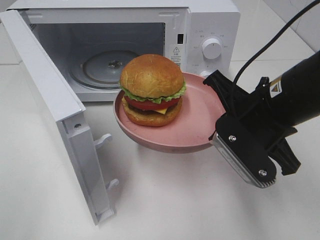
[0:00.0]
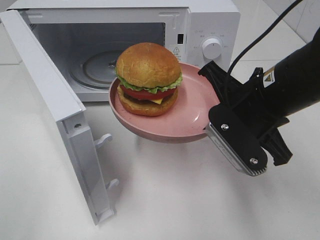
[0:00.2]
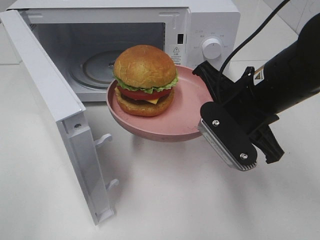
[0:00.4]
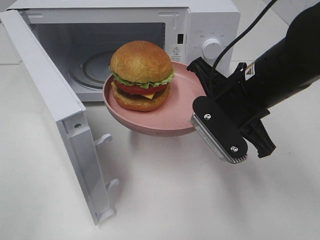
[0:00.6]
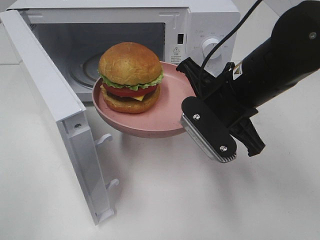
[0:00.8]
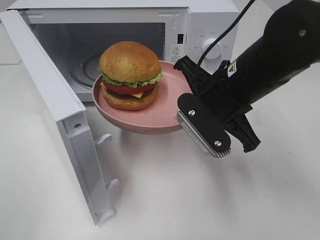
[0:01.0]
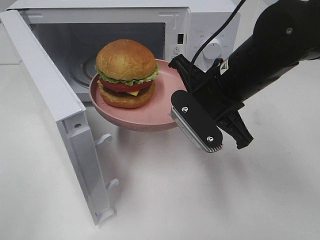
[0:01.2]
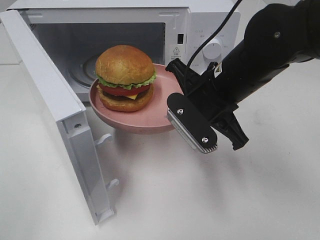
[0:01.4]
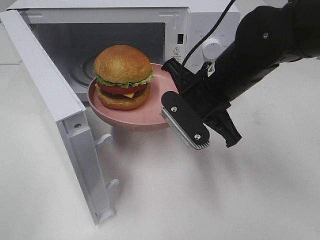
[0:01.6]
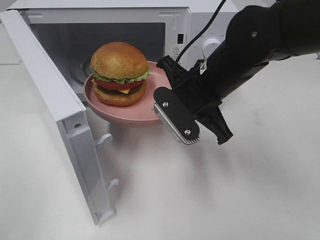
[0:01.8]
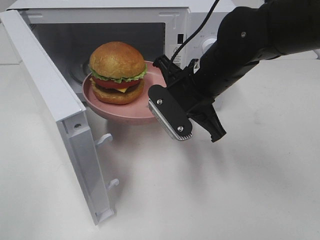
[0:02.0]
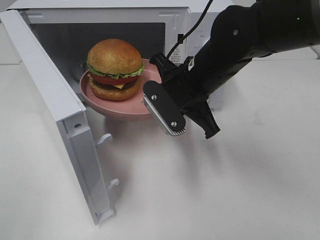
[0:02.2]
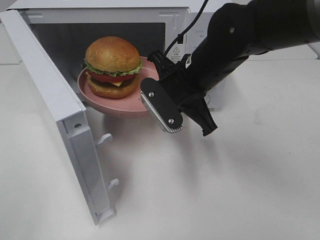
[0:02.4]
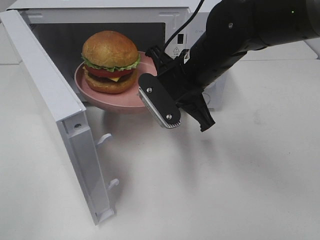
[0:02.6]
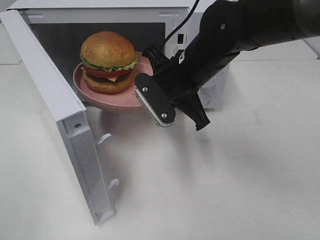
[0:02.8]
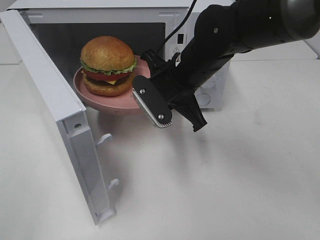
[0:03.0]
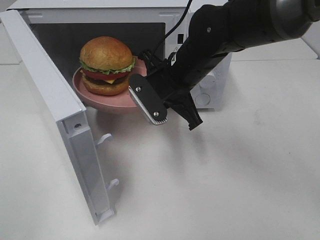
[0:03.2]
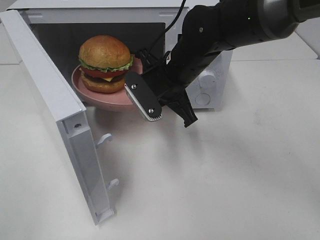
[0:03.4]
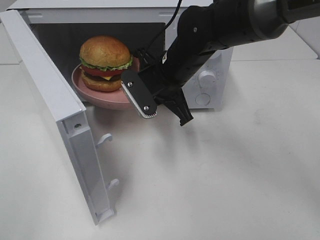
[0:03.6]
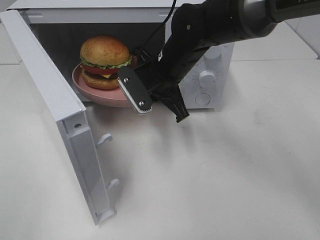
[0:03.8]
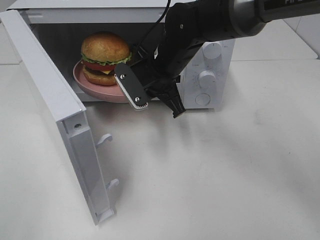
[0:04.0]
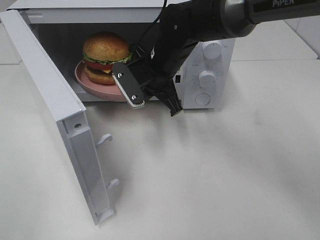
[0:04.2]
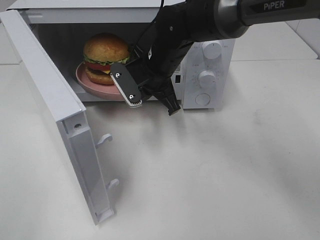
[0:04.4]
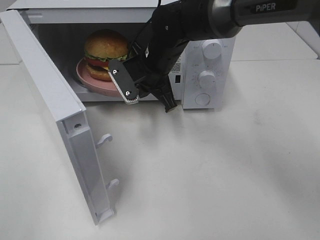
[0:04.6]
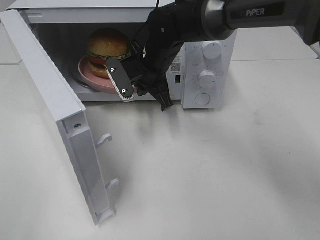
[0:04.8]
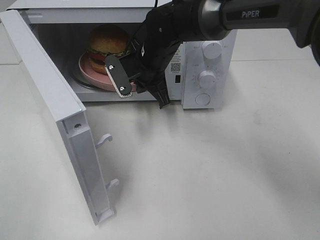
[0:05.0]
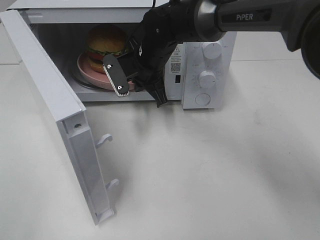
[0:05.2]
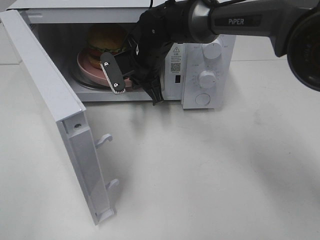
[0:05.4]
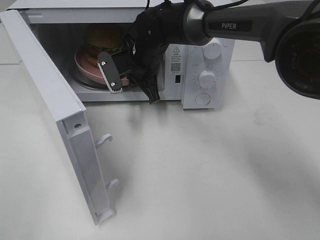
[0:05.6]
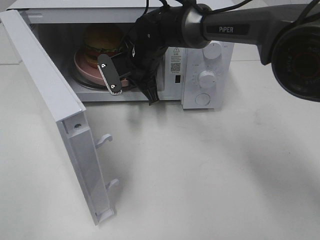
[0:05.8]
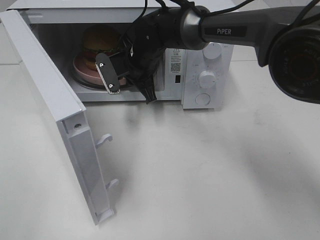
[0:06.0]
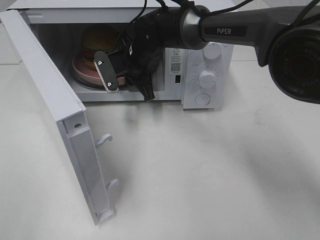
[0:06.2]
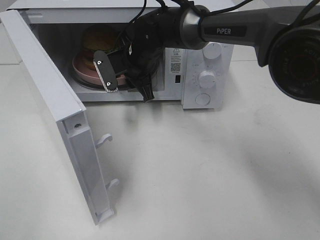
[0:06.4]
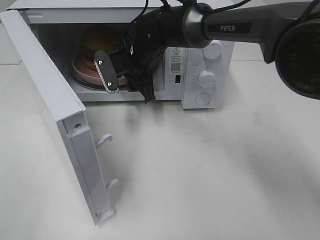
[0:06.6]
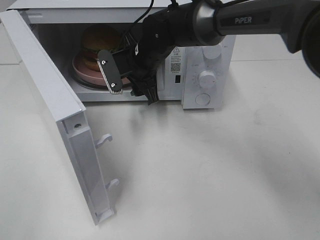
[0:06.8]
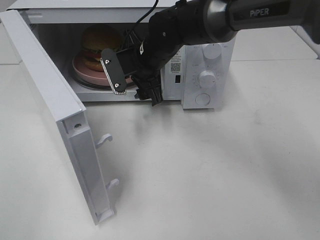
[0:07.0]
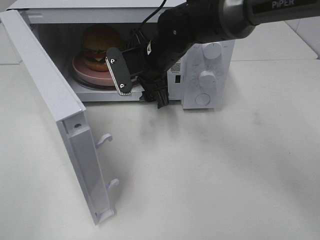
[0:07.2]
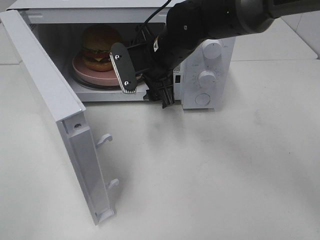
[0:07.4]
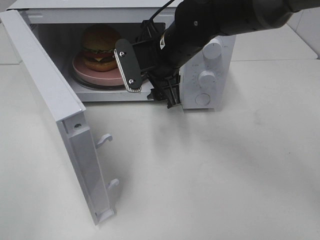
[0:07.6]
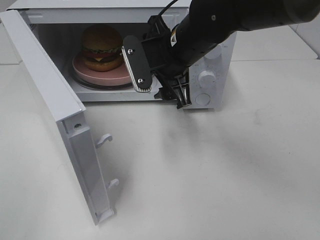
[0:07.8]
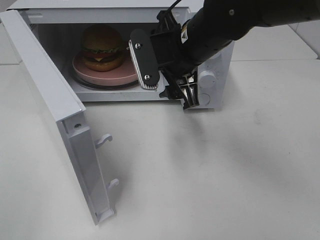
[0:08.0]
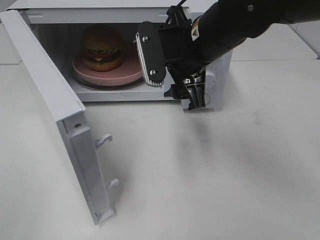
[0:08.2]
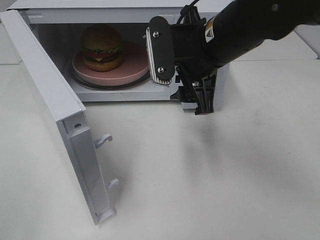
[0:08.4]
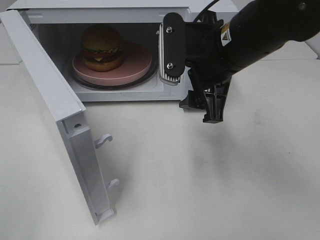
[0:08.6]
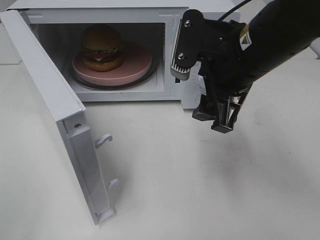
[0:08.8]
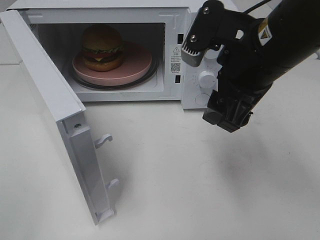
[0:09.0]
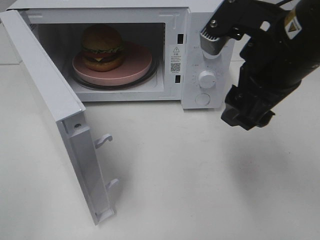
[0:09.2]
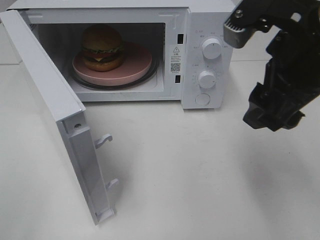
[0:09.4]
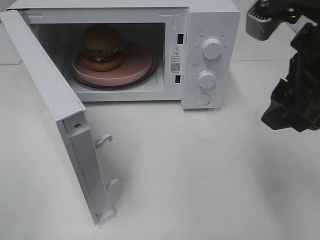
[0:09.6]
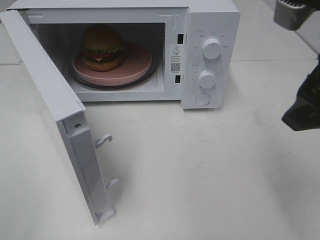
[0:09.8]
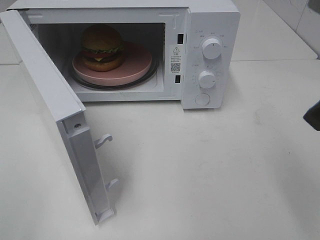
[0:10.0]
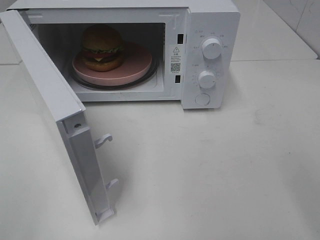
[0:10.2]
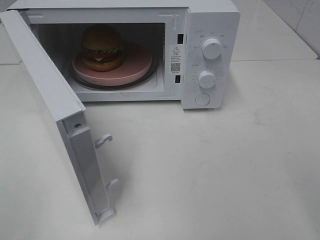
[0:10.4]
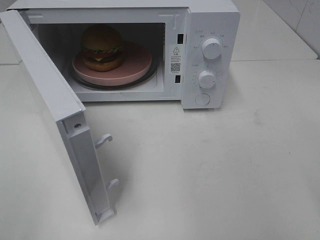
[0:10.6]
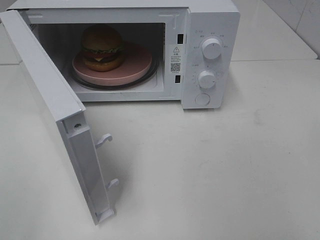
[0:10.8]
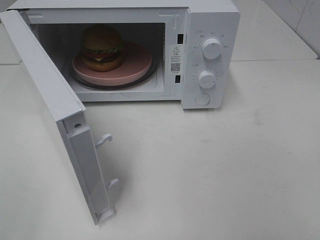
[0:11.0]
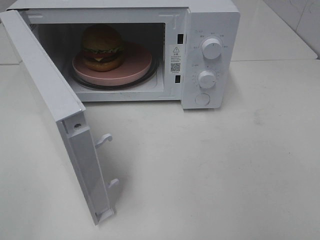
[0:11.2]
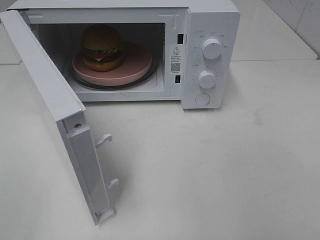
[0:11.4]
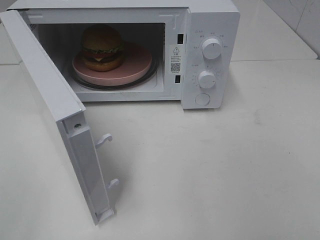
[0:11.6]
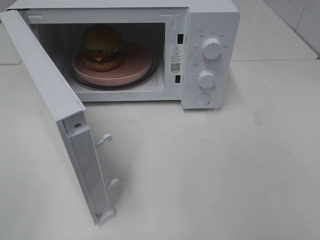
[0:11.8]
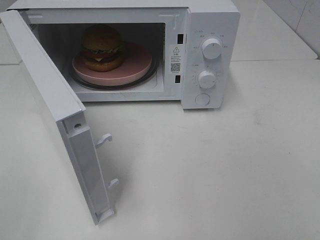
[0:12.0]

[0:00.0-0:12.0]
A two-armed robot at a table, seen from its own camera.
Task of the whole recording: Heat the burger.
Step, 0:00.0 to 0:06.8: Right hand: place the plate in the microwave.
0:00.0 to 0:01.6: The right gripper moves forward and to the left, roughly 10 cm.
0:01.6 to 0:03.0: The right gripper changes place by roughly 5 cm.
0:03.0 to 0:04.4: The right gripper goes about 5 cm forward.
0:04.4 to 0:06.0: The right gripper travels forward by some 5 cm.
0:06.0 to 0:07.6: The right gripper moves backward, to the right and upward, some 10 cm, and opens.
0:07.6 to 0:09.0: The right gripper is displaced backward, to the right and upward by approximately 15 cm.
0:09.0 to 0:10.4: The right gripper goes roughly 20 cm backward, to the right and upward.

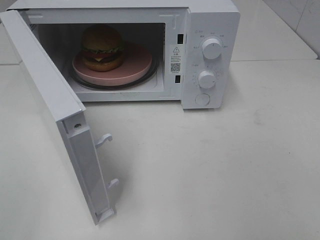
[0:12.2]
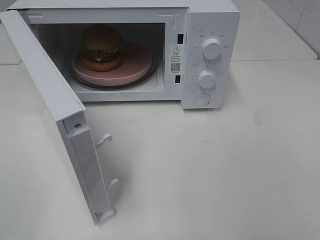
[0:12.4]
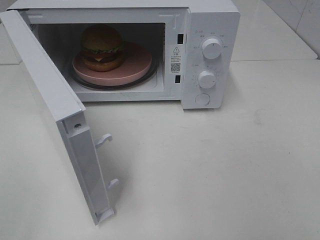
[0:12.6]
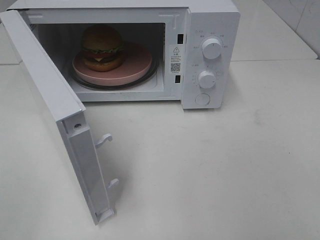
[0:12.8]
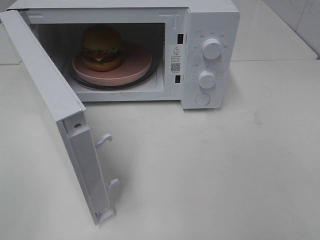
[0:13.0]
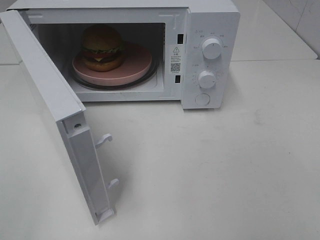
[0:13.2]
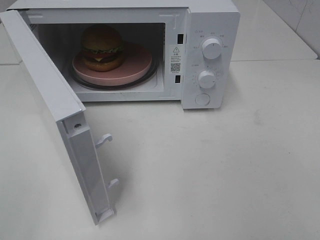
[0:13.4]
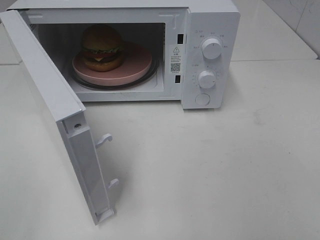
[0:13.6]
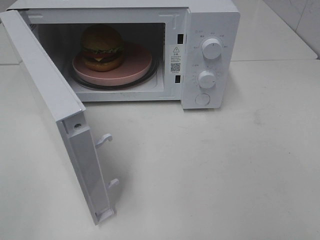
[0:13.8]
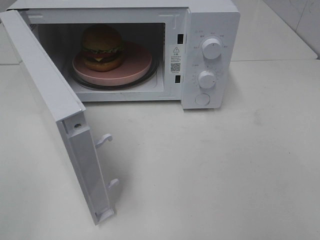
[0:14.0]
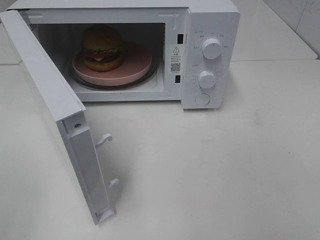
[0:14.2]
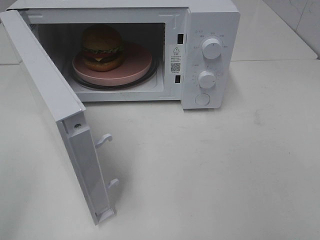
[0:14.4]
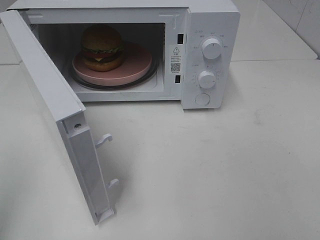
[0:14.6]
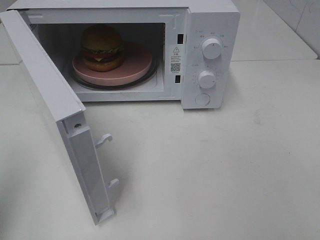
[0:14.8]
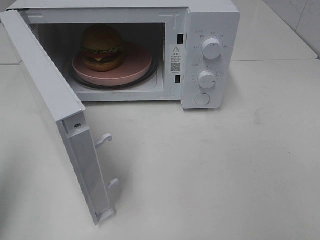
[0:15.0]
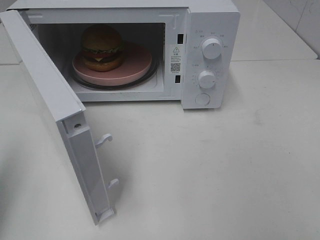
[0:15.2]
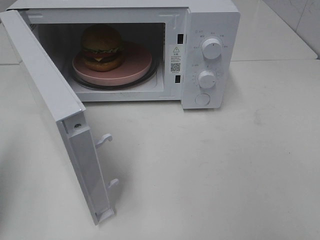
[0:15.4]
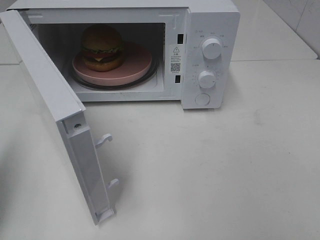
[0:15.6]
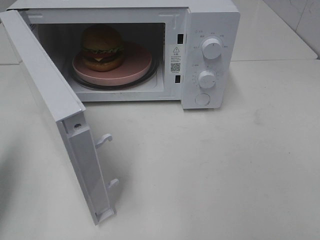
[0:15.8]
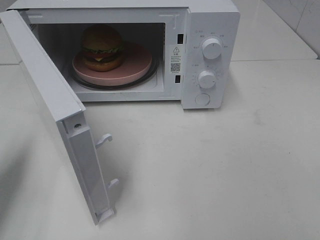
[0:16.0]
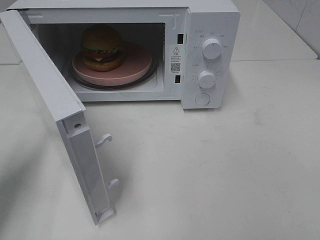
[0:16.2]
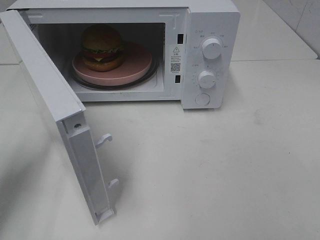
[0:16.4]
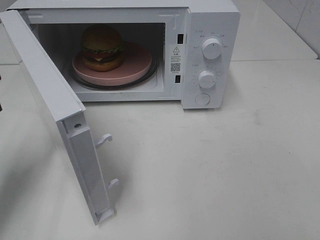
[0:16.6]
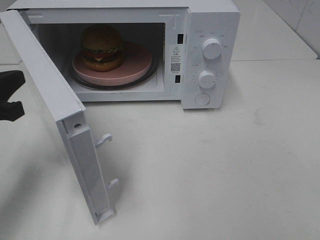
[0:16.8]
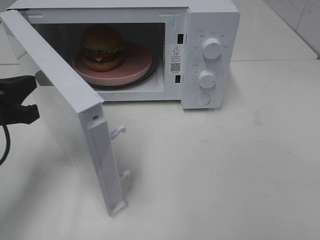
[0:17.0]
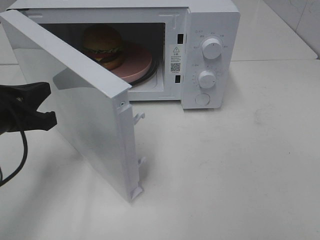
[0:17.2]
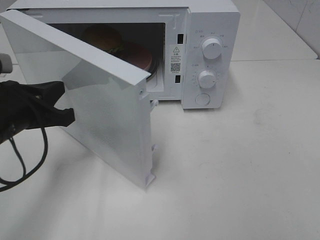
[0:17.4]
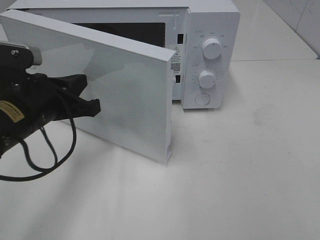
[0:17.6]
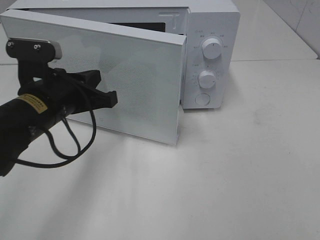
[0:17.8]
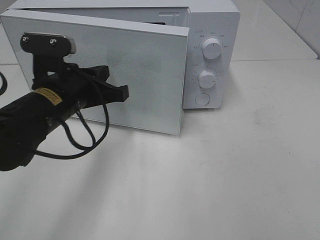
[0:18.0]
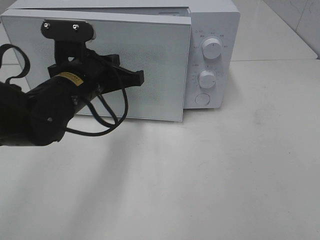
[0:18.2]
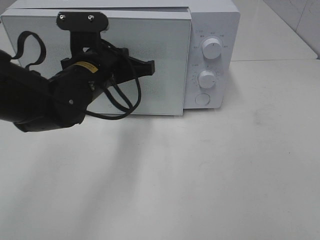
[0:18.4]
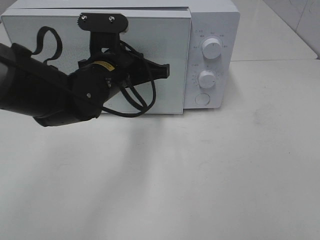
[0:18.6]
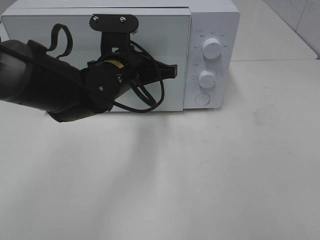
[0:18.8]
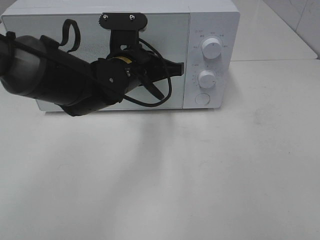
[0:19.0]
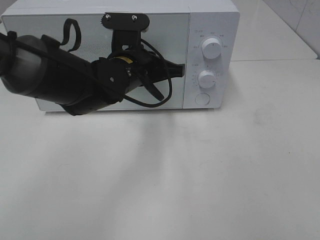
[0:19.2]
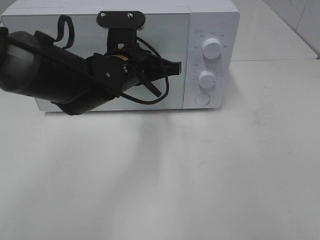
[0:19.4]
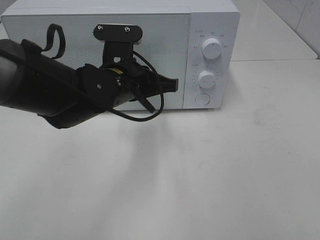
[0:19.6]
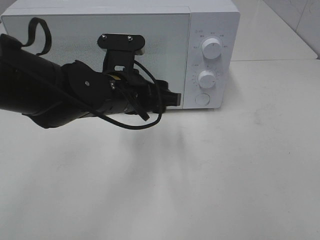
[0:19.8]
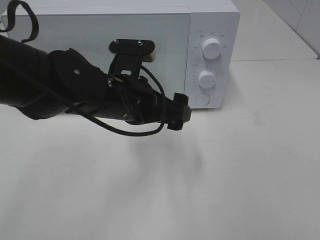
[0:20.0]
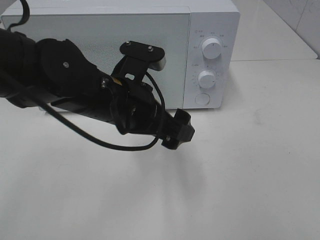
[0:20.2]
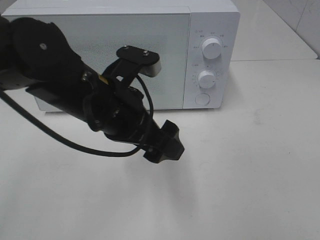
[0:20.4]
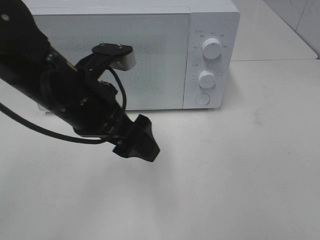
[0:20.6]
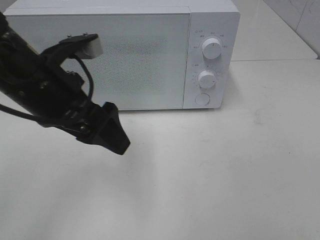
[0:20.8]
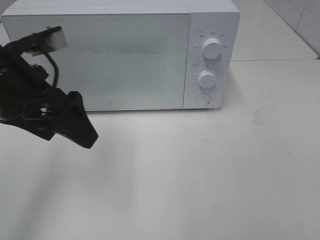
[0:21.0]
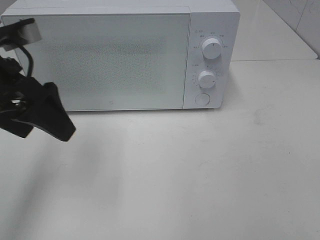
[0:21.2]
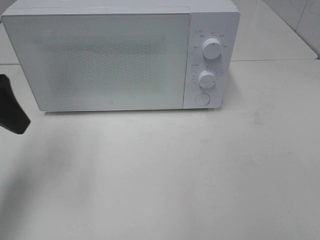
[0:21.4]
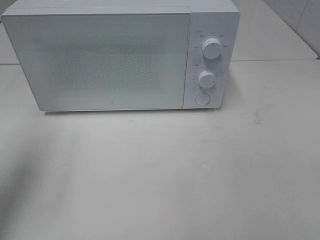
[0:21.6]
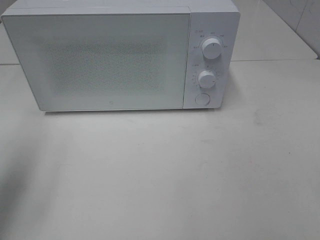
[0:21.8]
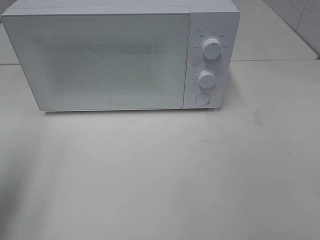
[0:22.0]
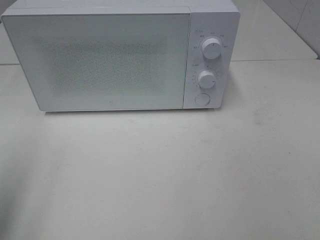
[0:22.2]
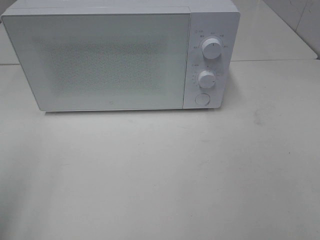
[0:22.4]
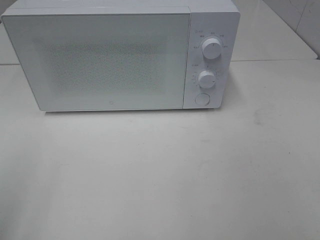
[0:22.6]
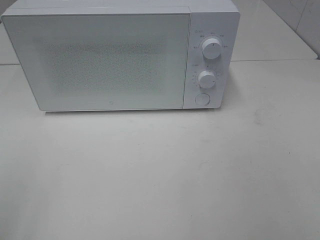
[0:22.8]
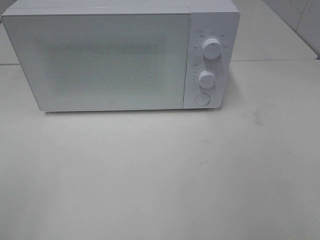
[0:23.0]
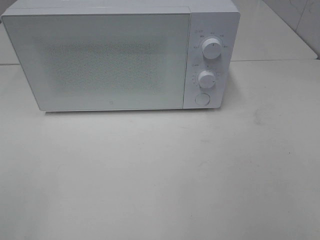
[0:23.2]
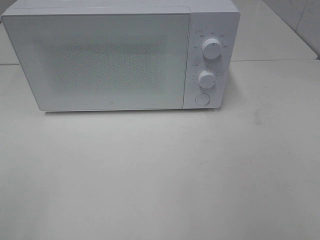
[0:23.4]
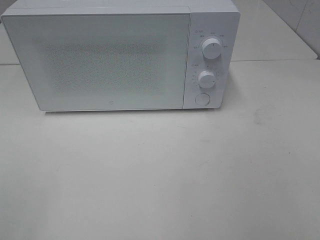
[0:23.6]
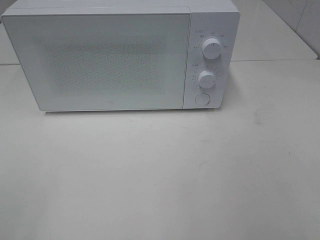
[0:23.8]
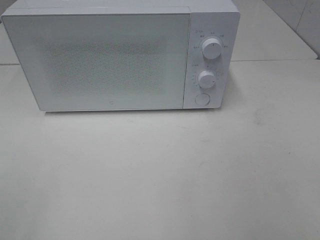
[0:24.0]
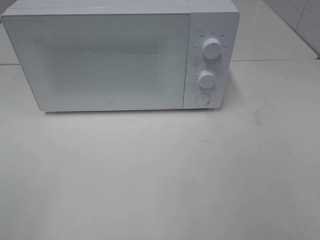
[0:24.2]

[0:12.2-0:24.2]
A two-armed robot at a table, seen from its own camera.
Task of the whole recording: Heat the burger.
Step, 0:12.2 to 0:19.6: Left hand: close the microwave door.
0:12.2 to 0:13.8: Neither gripper changes place.
0:13.8 to 0:15.2: The left gripper is displaced forward by some 15 cm, and closes.
0:15.2 to 0:16.6: The left gripper heads downward and forward, covering some 10 cm.
0:16.6 to 0:18.2: The left gripper shifts about 20 cm to the right and forward.
0:18.2 to 0:19.8: The left gripper goes some 5 cm to the right, and opens.
0:19.8 to 0:21.2: The left gripper travels to the left and upward by roughly 20 cm.
0:21.2 to 0:22.6: The left gripper heads backward and to the left, covering roughly 20 cm.
